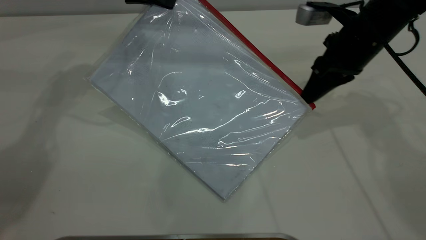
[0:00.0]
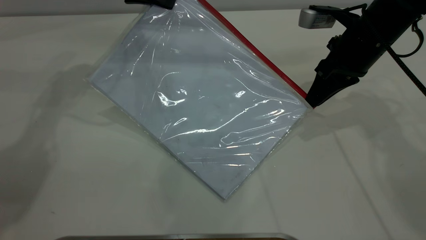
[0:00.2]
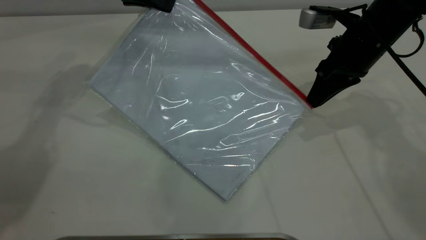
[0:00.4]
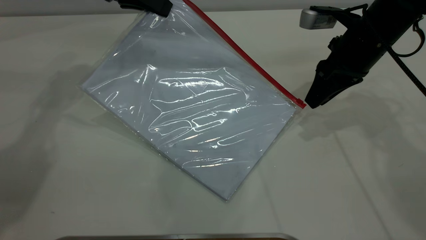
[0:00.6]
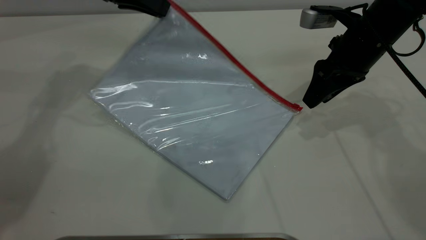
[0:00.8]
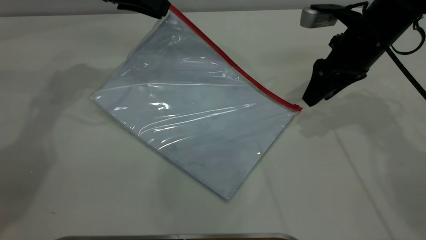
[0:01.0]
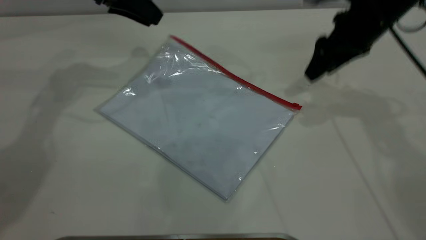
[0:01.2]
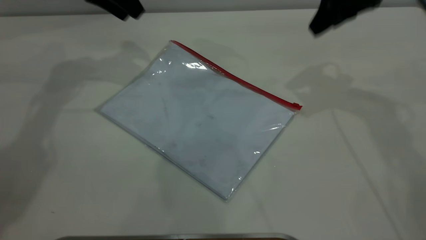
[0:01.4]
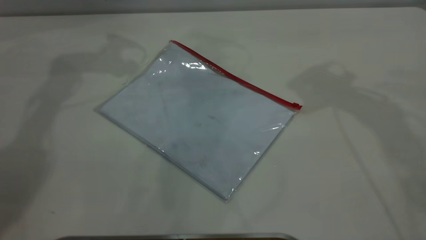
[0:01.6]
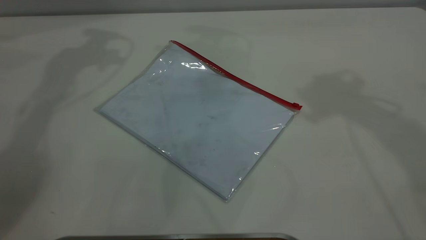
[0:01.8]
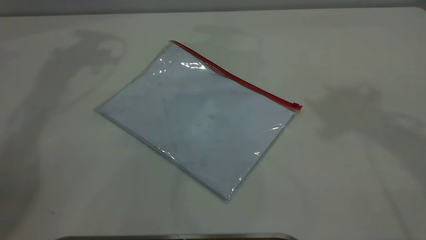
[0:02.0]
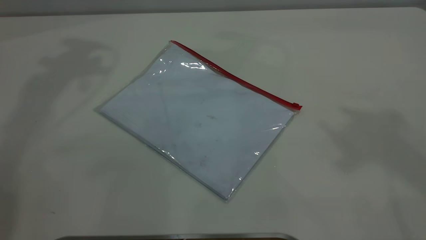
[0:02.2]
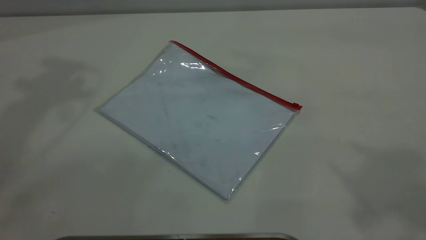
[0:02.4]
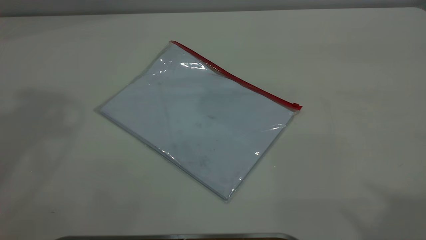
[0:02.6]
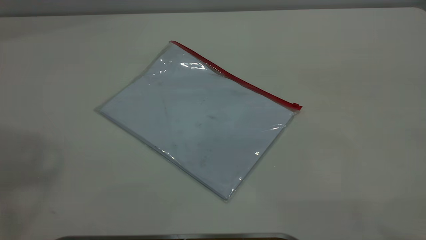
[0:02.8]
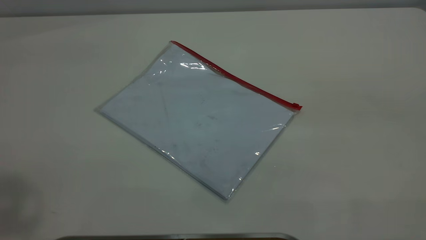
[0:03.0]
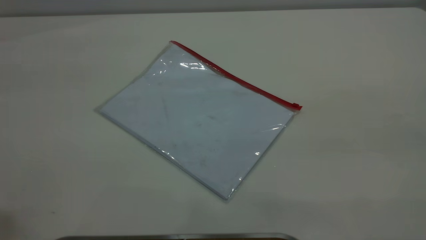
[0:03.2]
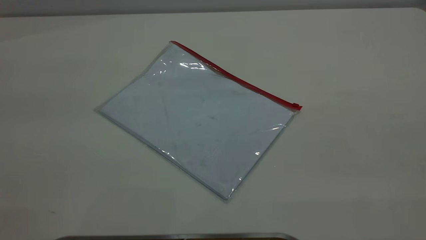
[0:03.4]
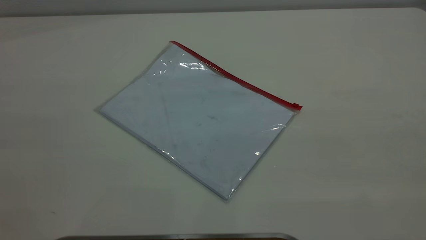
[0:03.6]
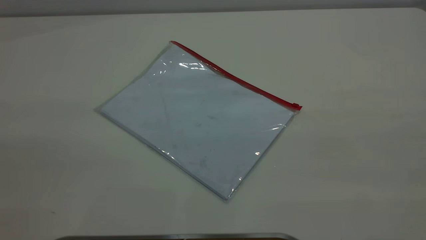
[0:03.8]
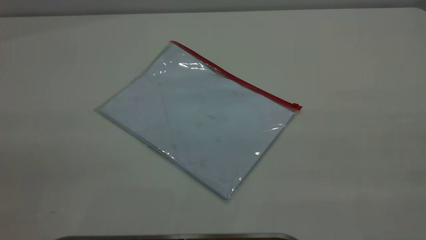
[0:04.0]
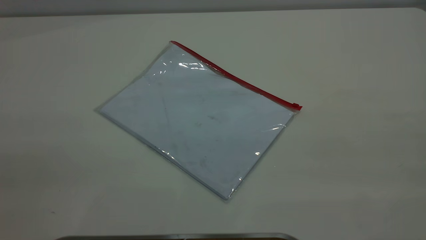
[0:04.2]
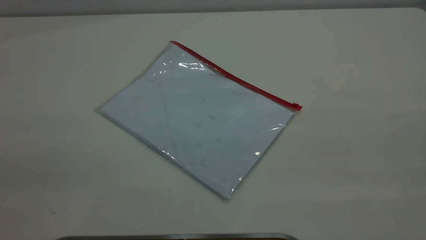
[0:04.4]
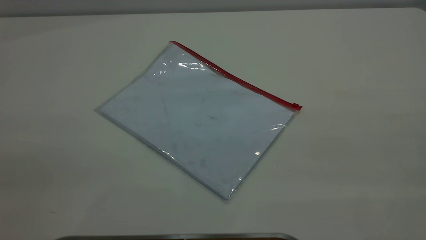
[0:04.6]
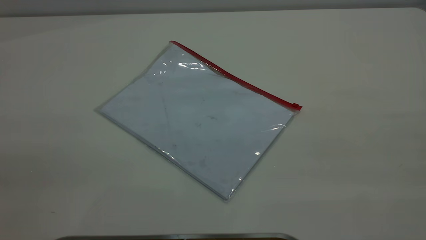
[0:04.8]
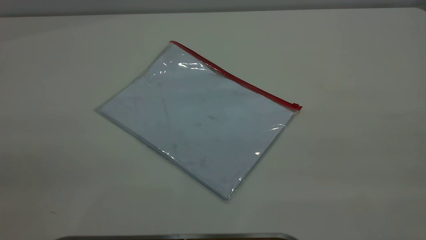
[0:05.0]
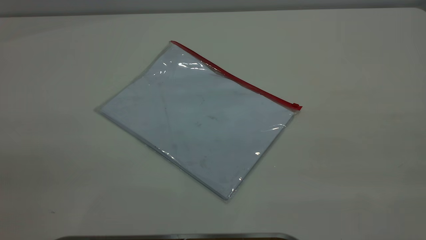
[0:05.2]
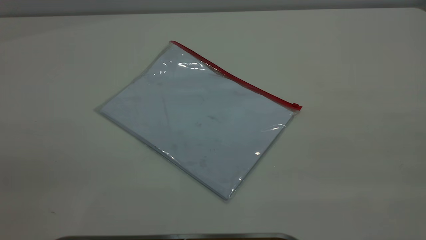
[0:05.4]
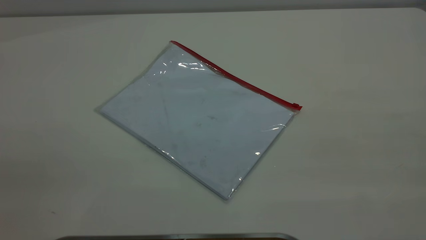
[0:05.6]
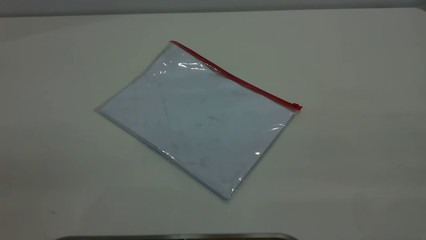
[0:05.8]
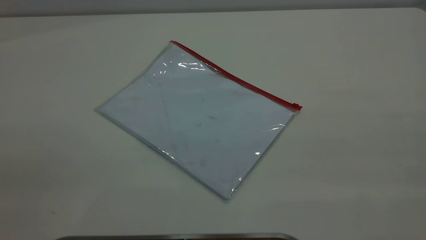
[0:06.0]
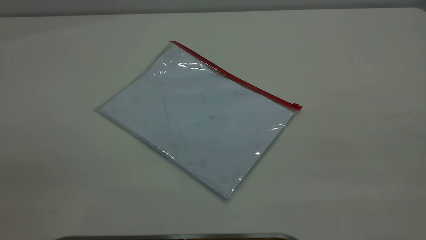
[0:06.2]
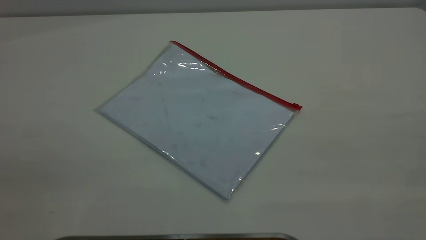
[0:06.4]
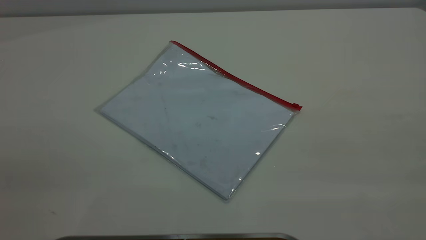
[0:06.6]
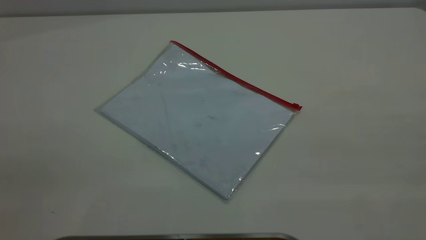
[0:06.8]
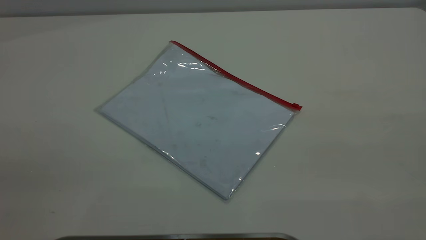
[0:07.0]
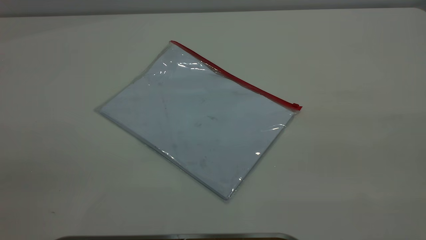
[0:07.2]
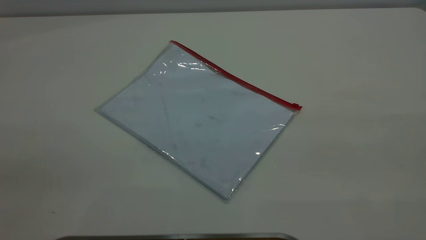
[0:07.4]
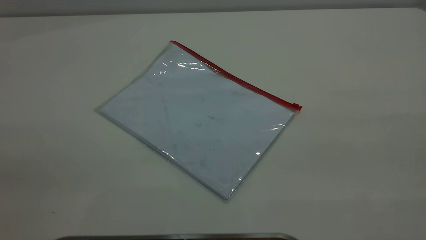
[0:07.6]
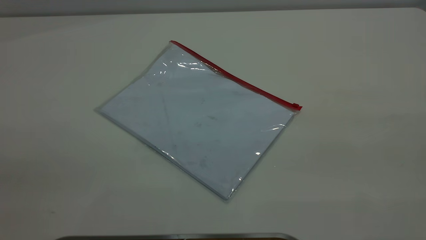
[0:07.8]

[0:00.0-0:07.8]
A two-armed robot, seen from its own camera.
Step, 0:01.0 to 0:01.4: Place the transparent plastic bag.
0:00.0 to 0:01.6: The right gripper shifts some 20 cm upward, and opens up. Meanwhile the left gripper shifts some 10 cm upward, and opens its fingers.

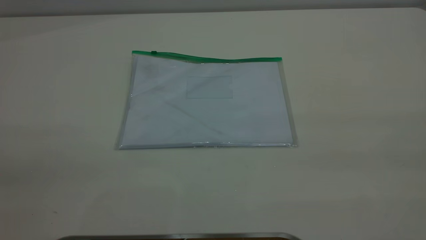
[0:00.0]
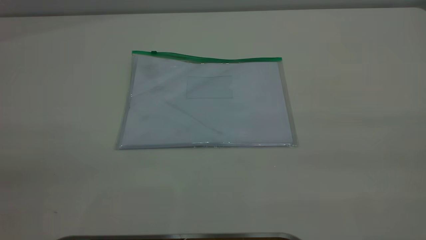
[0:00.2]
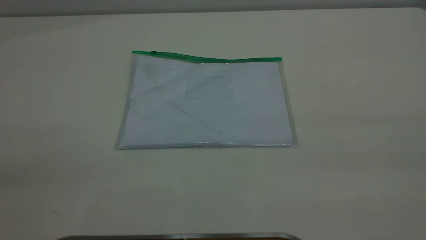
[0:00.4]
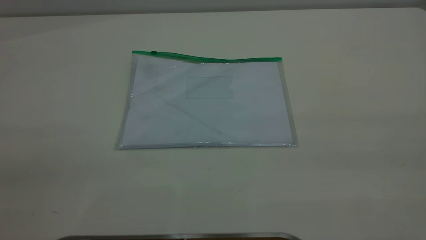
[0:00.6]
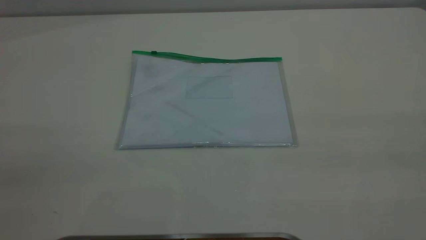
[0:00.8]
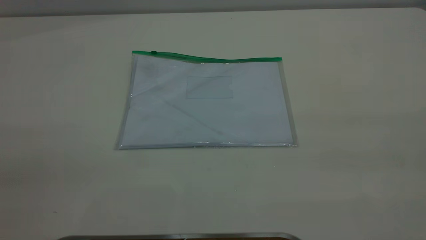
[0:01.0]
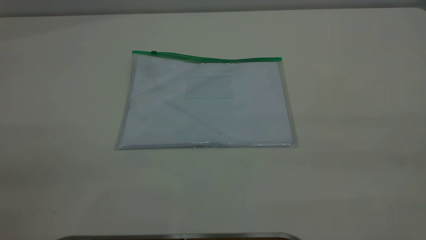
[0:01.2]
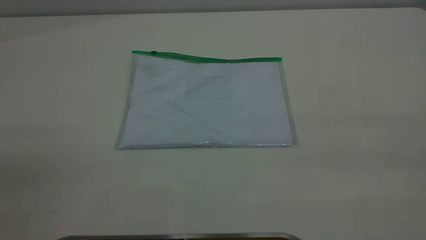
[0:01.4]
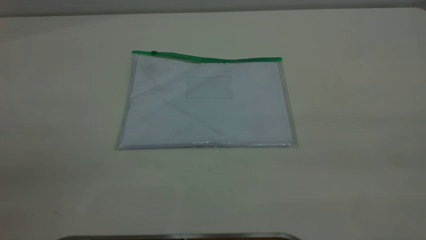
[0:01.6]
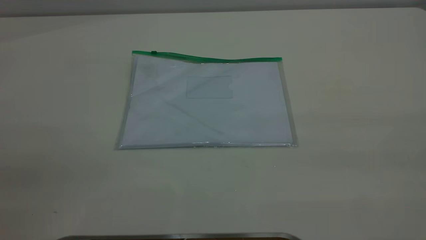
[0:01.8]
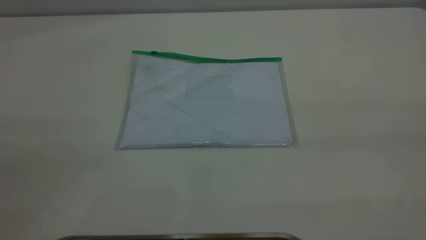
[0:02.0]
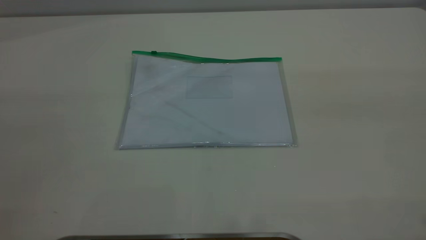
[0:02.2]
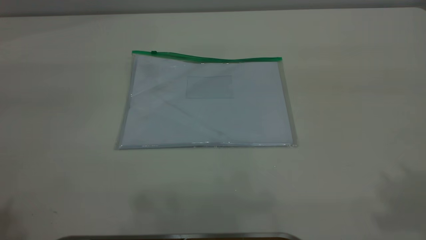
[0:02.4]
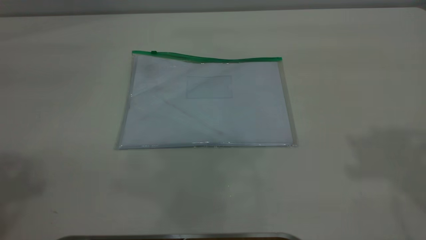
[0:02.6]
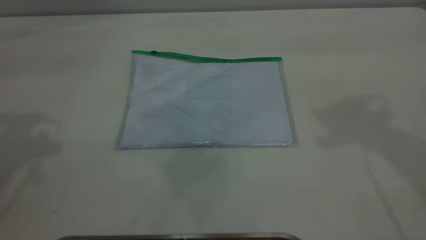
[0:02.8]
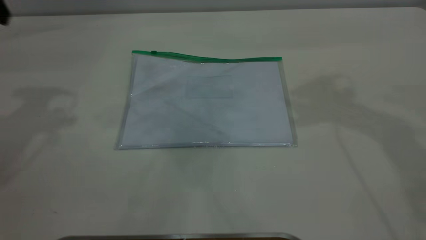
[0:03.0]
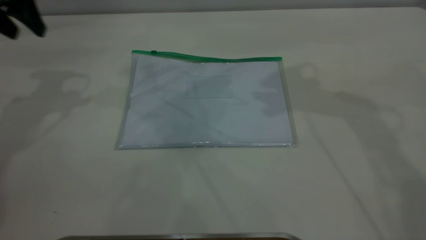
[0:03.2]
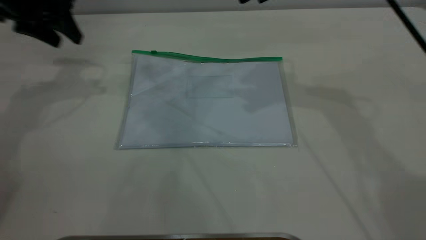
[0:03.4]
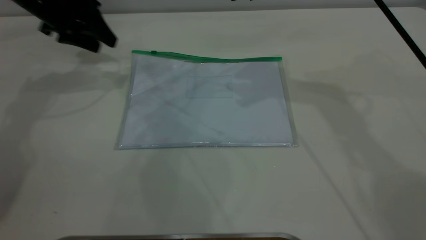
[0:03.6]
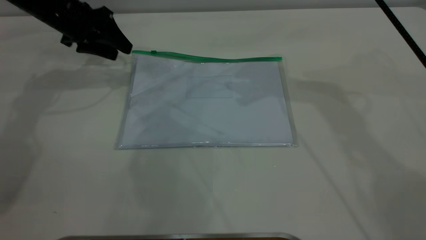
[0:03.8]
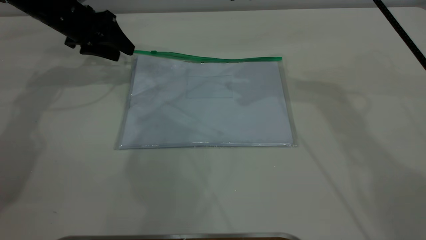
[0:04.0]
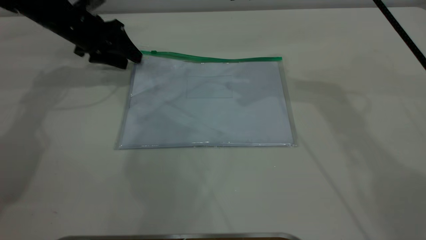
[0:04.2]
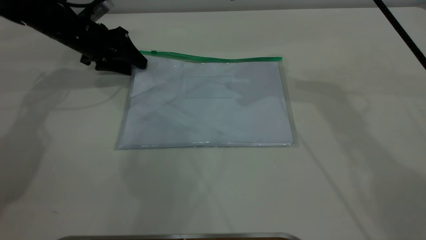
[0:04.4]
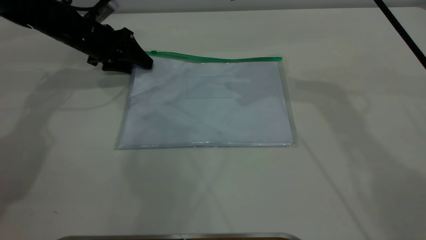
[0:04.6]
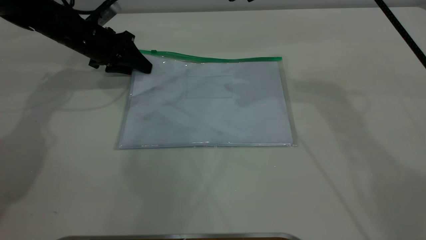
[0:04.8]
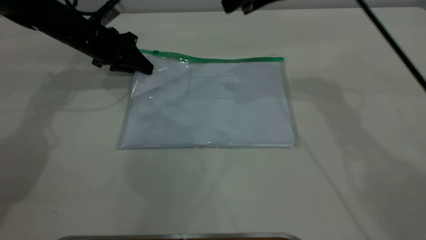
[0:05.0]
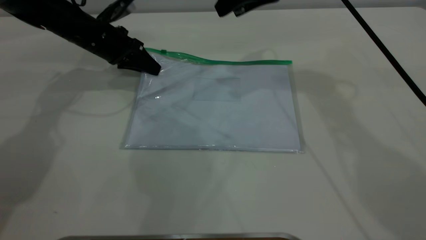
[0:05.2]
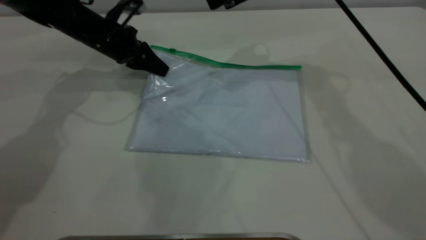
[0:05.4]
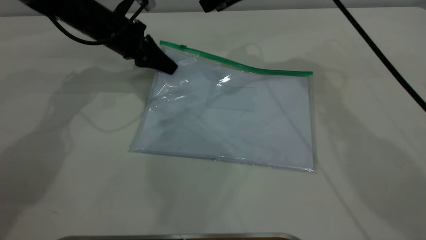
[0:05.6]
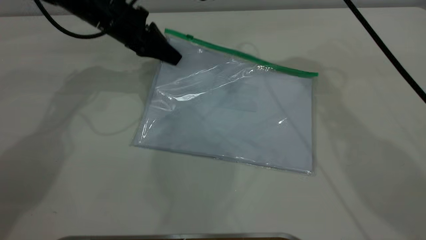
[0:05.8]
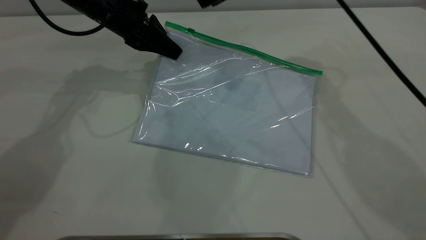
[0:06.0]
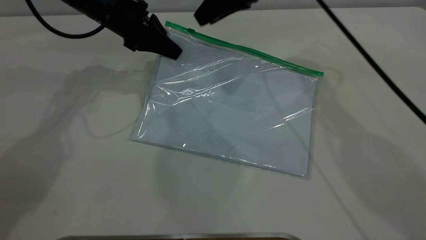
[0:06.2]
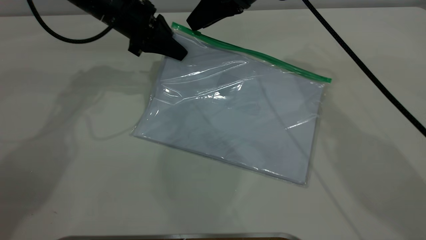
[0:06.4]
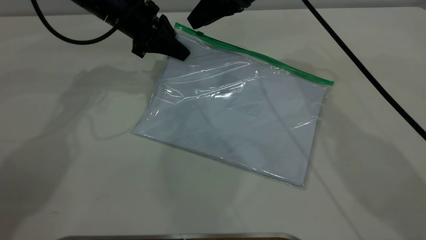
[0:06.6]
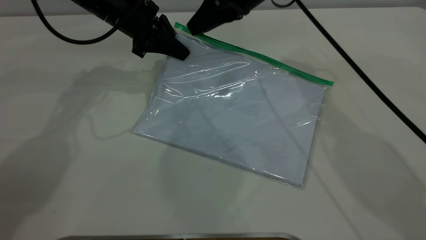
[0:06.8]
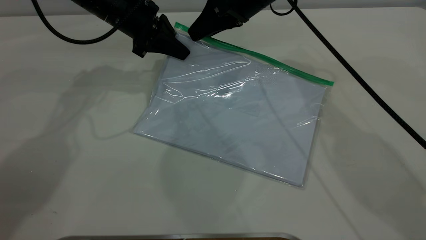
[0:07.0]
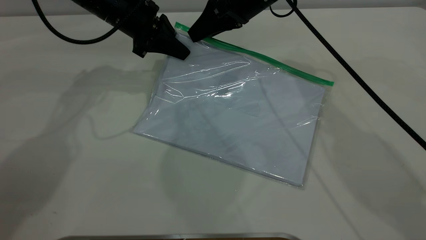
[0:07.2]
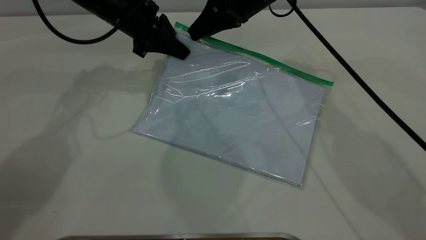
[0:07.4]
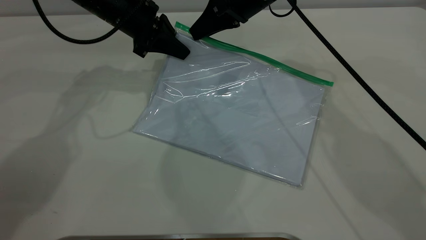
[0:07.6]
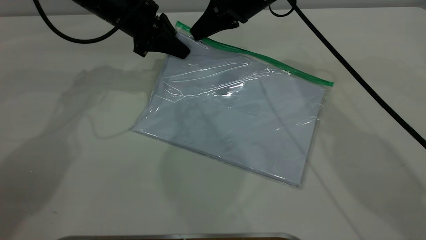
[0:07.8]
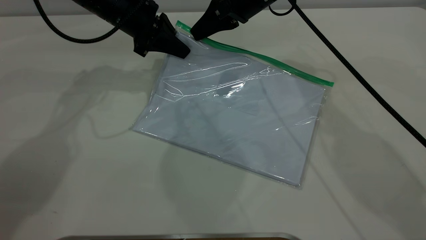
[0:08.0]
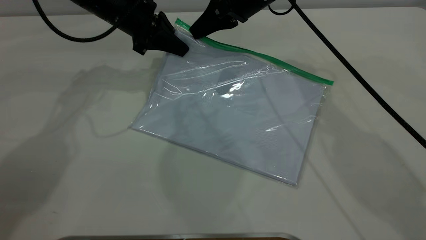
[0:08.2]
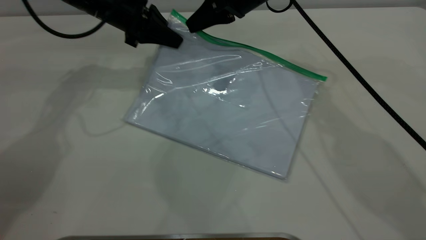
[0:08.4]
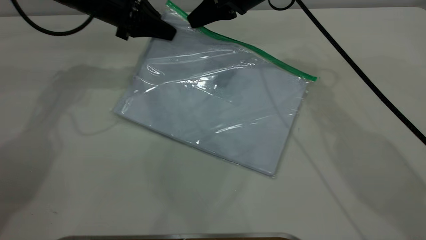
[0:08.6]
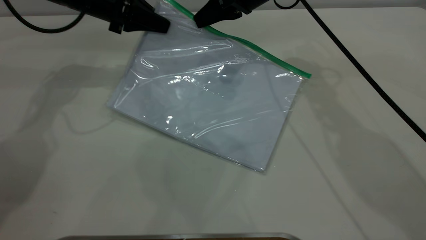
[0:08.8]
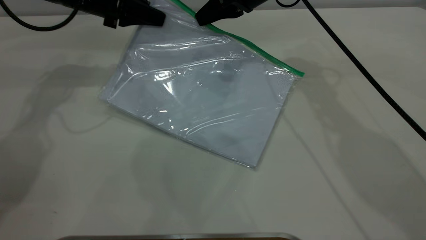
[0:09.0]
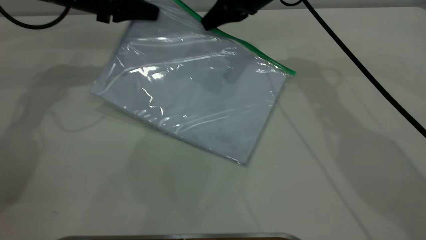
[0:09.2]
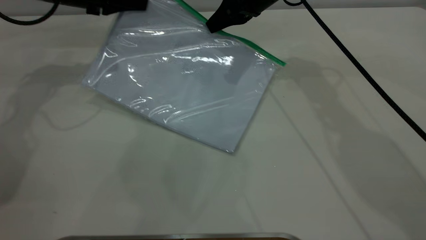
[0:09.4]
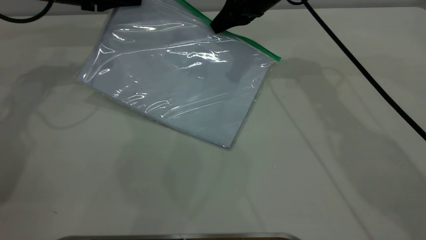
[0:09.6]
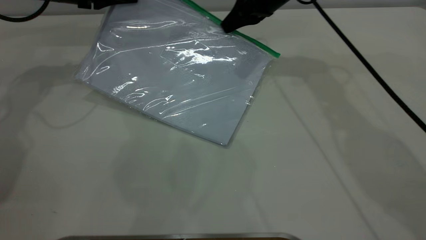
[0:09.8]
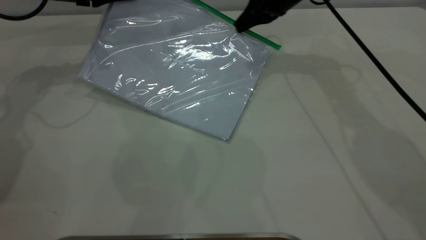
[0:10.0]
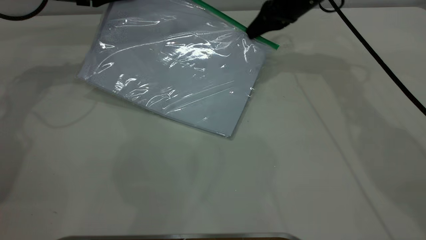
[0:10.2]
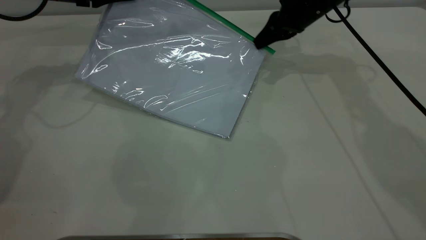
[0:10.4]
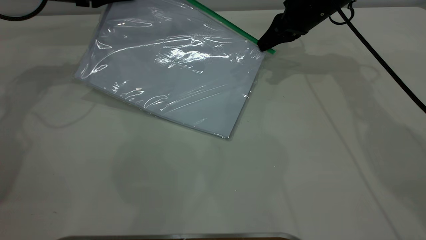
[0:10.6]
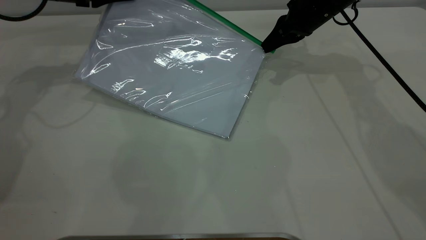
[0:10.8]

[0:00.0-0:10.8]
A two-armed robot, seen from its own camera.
Step, 0:00.0 to 0:05.6: Pick up the transparent plastic bag with the left gripper.
0:00.0 to 0:01.6: Both grippers stay put.
0:03.0 to 0:04.6: The right gripper heads to the left, forward and downward, covering approximately 10 cm; the left gripper travels downward and forward by some 25 cm.
0:04.6 to 0:06.2: The right gripper goes approximately 5 cm downward, while the left gripper travels to the right and upward by approximately 10 cm, and closes its fingers.
0:06.2 to 0:07.8: The right gripper closes.
0:07.8 to 0:09.2: The left gripper travels to the left by some 10 cm.
0:09.2 to 0:10.8: The right gripper goes roughly 10 cm to the right and downward.
